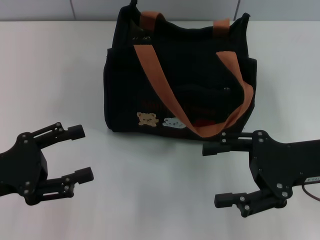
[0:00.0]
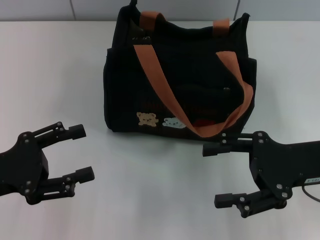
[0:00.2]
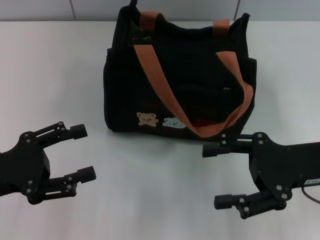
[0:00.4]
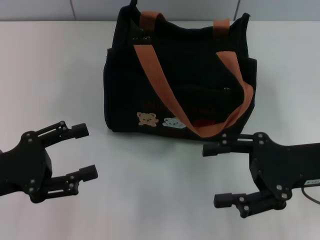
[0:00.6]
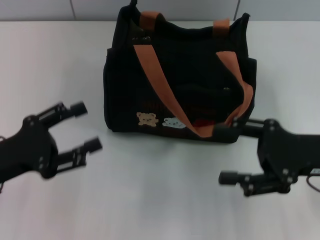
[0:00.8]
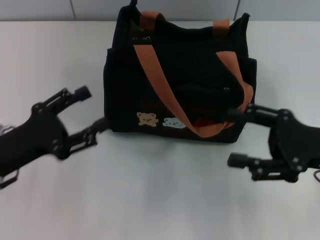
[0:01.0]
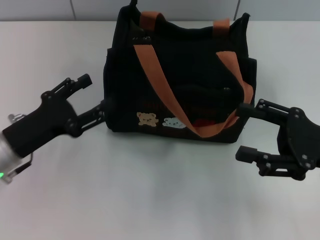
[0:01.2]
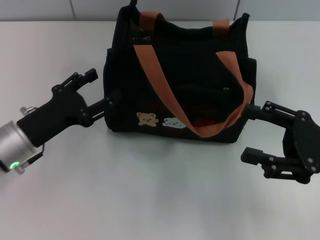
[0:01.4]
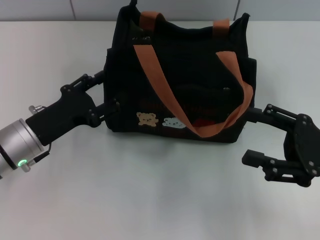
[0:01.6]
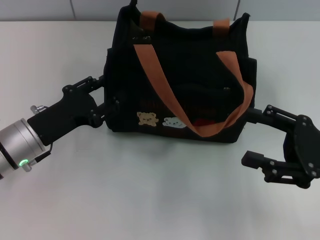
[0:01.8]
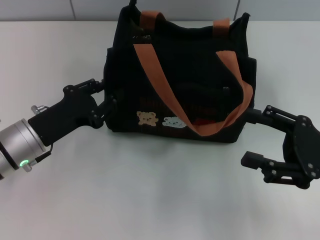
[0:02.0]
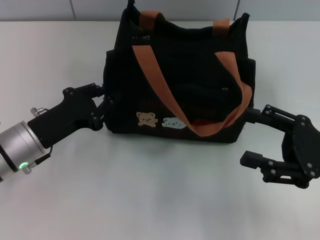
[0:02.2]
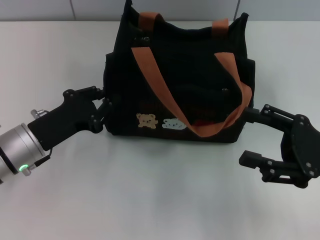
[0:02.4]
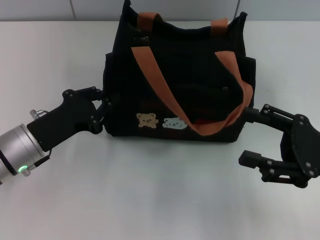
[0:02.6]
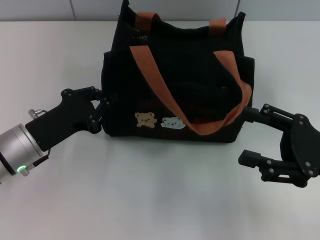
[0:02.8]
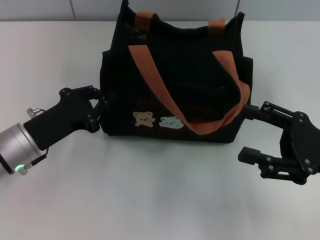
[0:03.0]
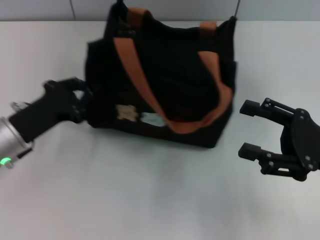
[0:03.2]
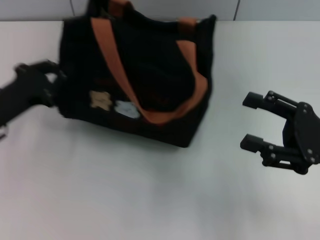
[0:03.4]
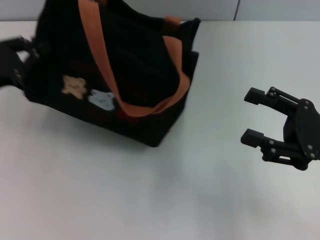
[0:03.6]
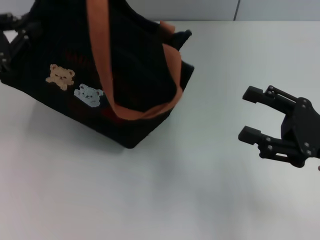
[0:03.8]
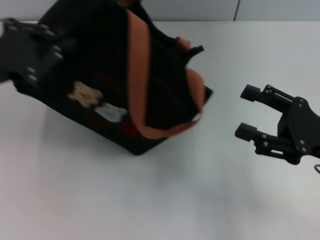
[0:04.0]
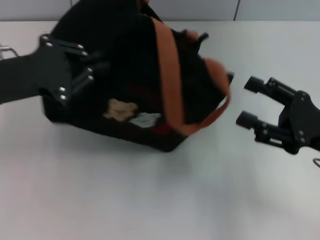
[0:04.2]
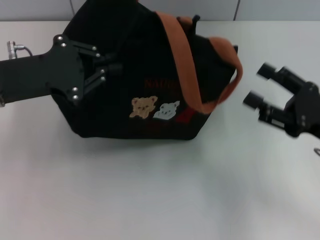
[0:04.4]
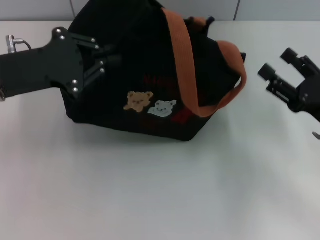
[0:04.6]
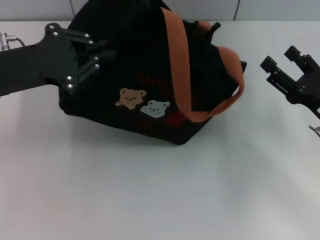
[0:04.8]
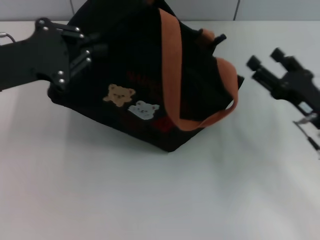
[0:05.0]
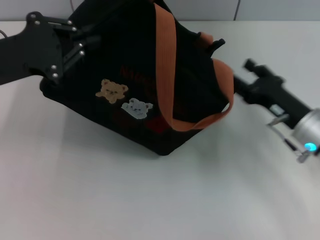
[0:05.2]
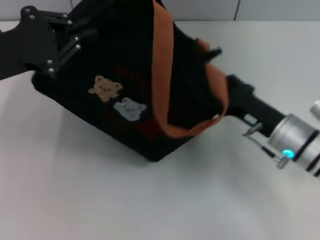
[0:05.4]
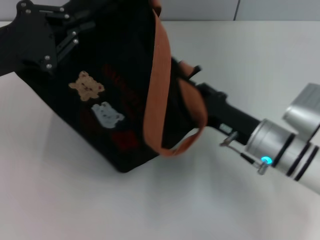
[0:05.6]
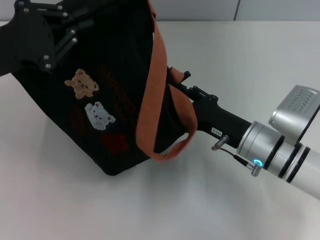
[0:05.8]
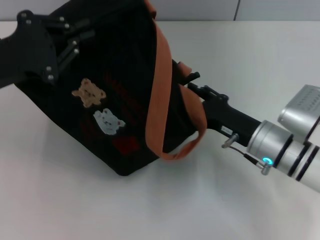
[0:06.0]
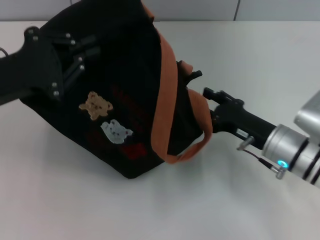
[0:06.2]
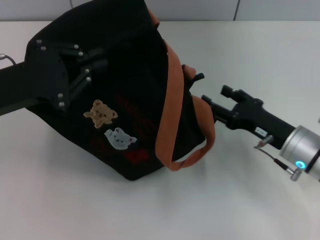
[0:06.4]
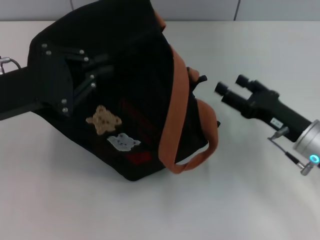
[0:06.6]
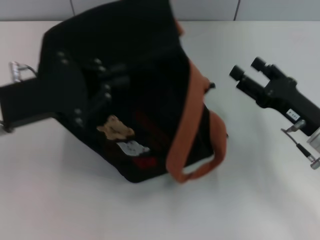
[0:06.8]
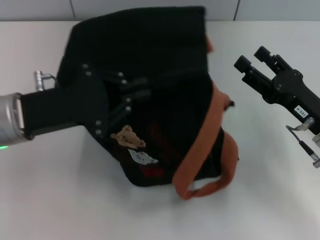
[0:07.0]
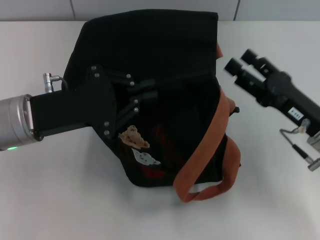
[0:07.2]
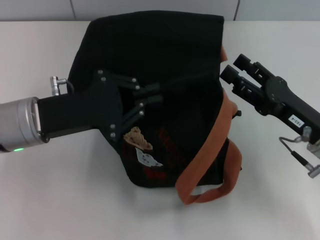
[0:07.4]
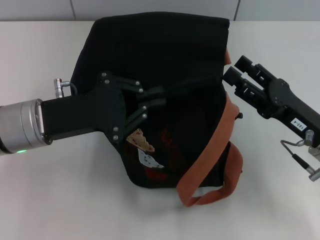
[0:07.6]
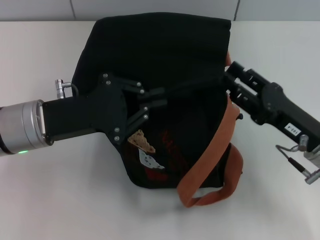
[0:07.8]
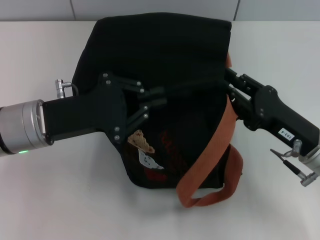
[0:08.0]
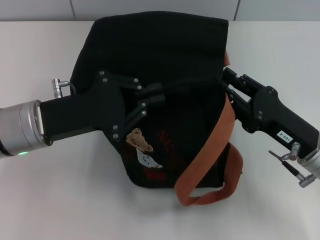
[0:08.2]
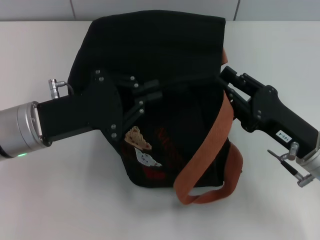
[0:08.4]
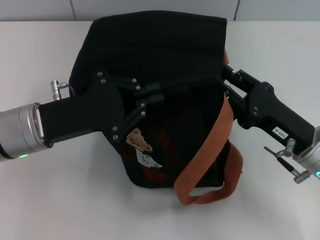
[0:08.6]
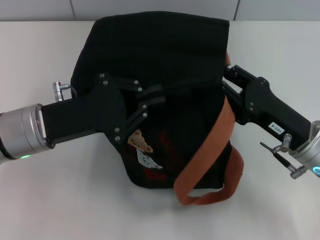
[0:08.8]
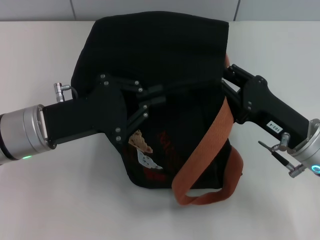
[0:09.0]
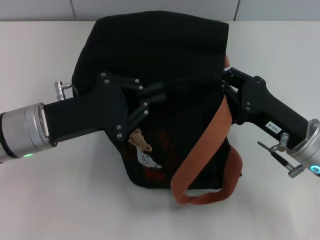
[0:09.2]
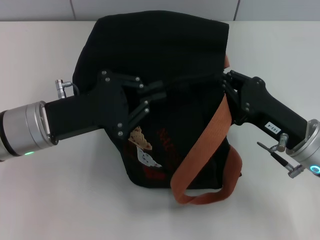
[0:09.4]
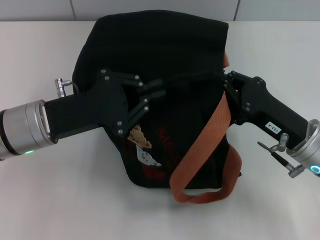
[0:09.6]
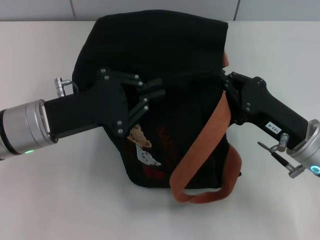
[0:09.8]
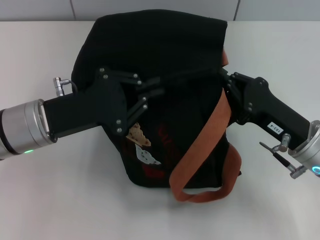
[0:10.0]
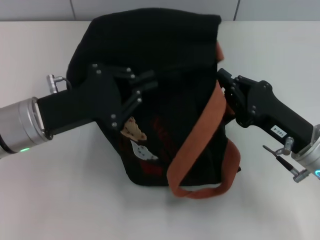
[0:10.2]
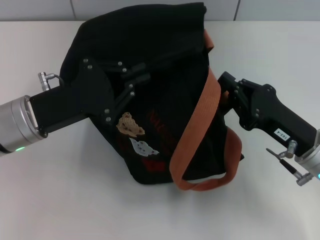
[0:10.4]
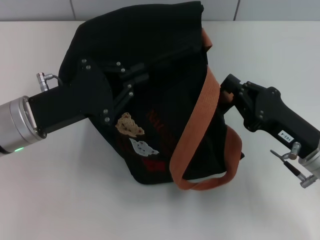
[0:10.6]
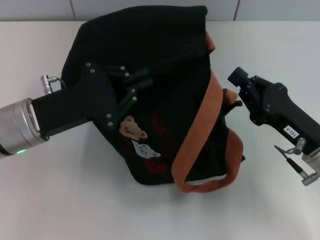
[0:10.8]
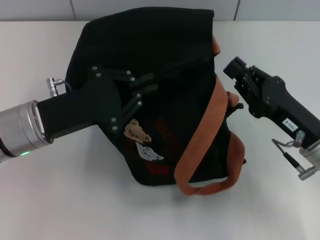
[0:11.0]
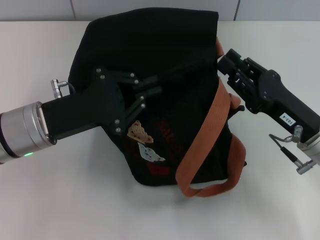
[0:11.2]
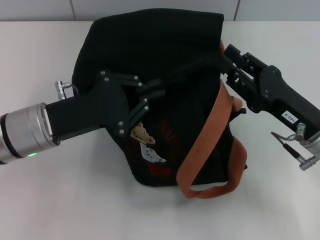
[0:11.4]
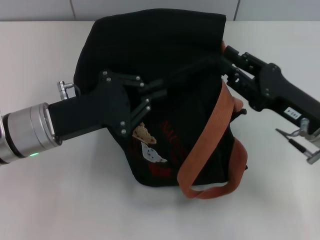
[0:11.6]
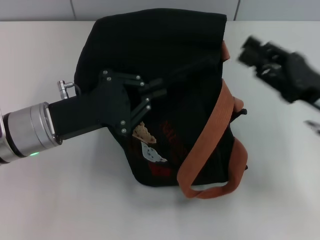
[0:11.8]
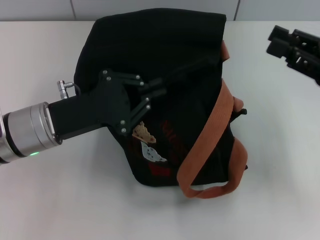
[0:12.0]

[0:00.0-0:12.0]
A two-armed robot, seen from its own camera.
0:00.0 to 0:01.6: The right gripper shifts by about 5 cm; the left gripper is displaced forward and to the right by approximately 10 cm.
0:01.6 to 0:03.0: The left gripper closes.
0:03.0 to 0:04.4: The left gripper goes about 10 cm upward.
0:04.4 to 0:06.0: The right gripper shifts some 10 cm to the left.
0:06.0 to 0:07.6: The grippers both shift to the right by approximately 5 cm.
0:07.6 to 0:09.0: The right gripper closes.
0:09.0 to 0:10.4: The right gripper closes up.
0:10.4 to 0:12.0: The right gripper goes roughly 10 cm upward and to the right, and opens its fingers.

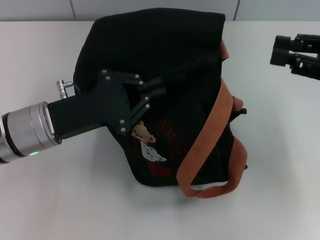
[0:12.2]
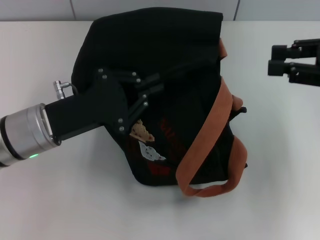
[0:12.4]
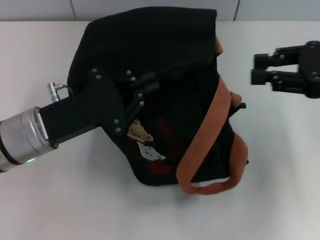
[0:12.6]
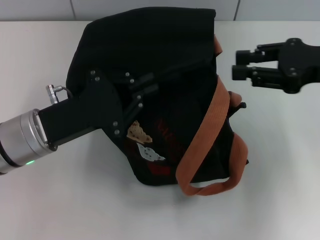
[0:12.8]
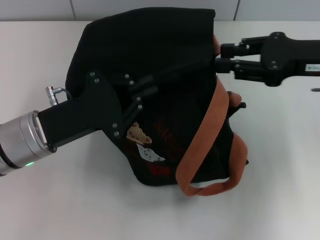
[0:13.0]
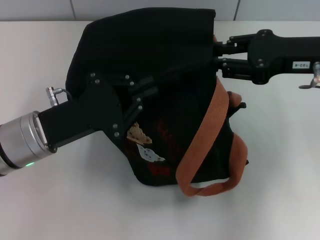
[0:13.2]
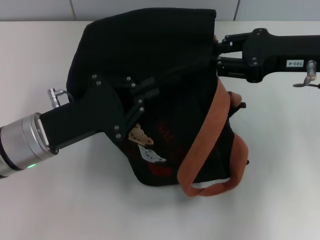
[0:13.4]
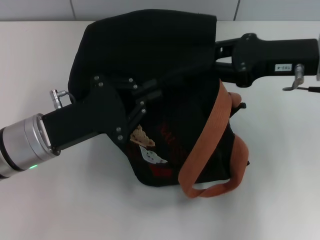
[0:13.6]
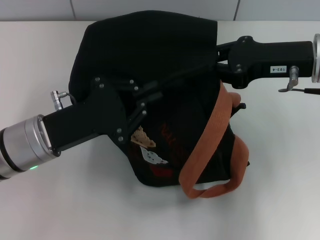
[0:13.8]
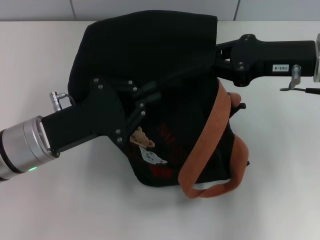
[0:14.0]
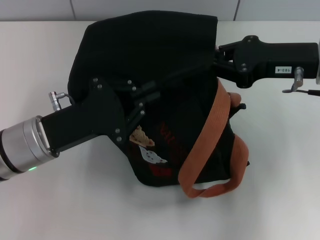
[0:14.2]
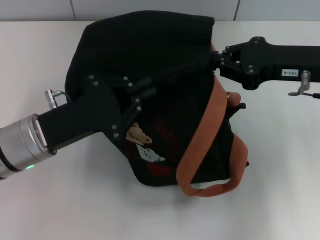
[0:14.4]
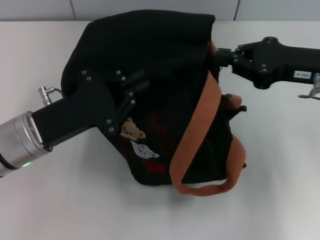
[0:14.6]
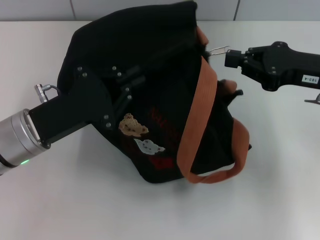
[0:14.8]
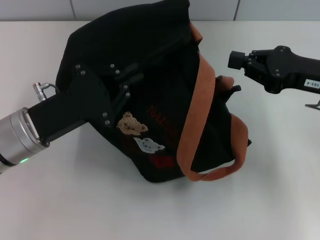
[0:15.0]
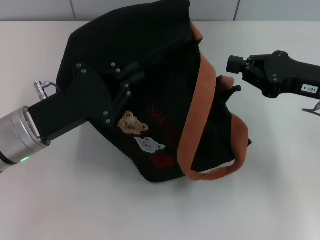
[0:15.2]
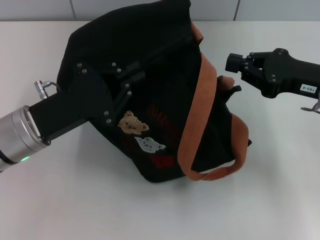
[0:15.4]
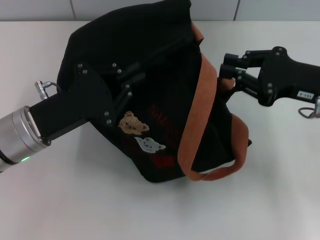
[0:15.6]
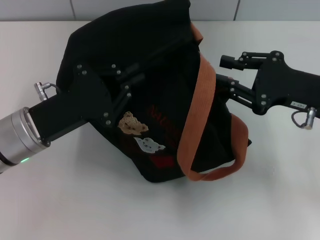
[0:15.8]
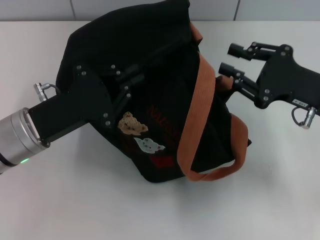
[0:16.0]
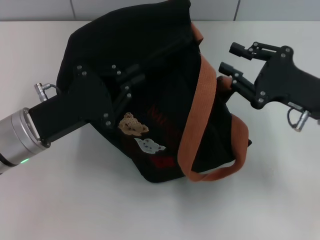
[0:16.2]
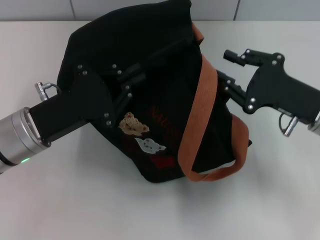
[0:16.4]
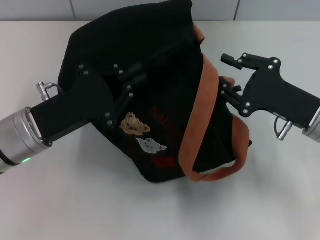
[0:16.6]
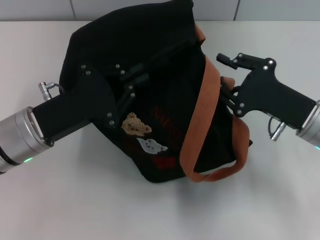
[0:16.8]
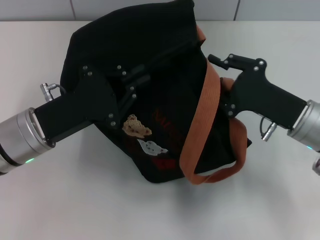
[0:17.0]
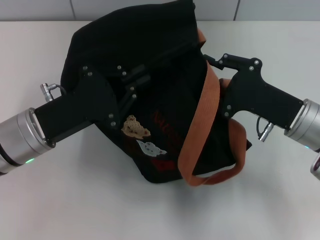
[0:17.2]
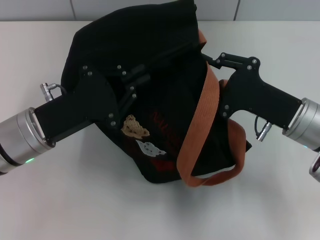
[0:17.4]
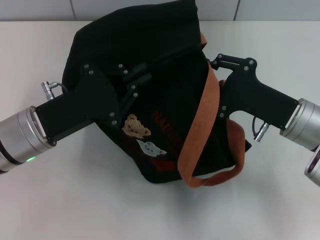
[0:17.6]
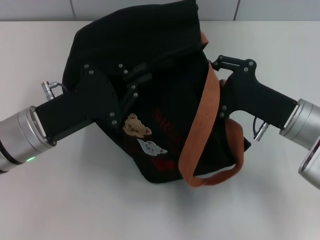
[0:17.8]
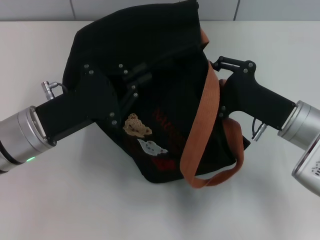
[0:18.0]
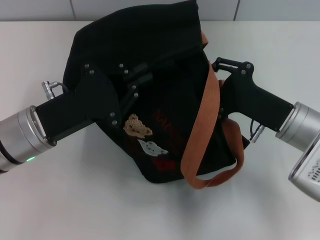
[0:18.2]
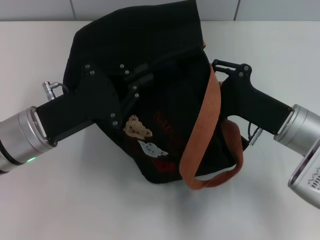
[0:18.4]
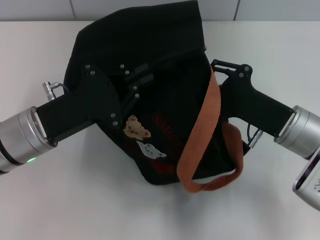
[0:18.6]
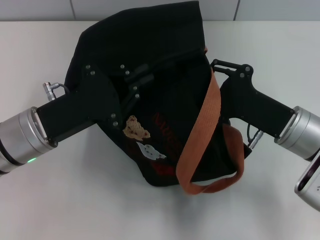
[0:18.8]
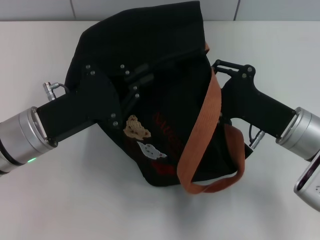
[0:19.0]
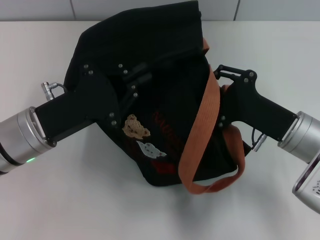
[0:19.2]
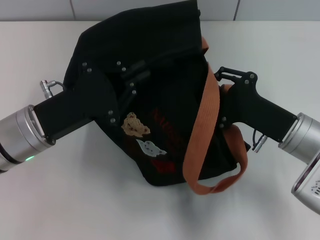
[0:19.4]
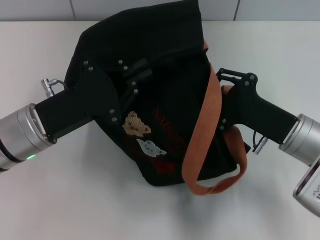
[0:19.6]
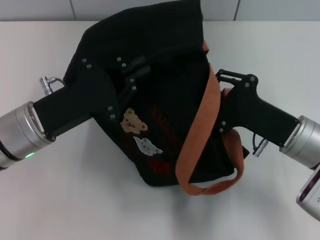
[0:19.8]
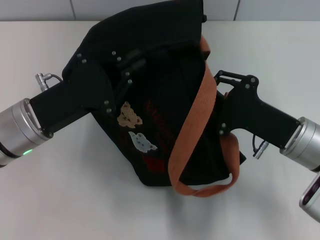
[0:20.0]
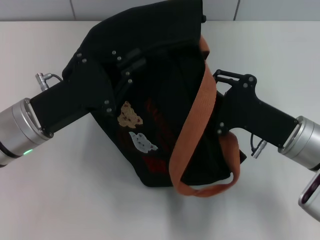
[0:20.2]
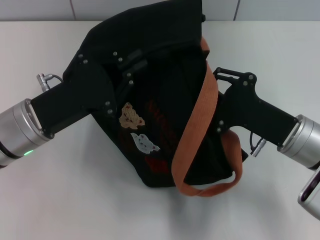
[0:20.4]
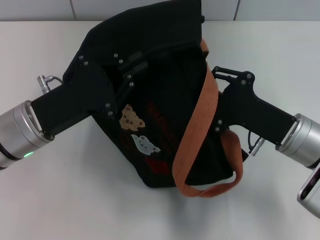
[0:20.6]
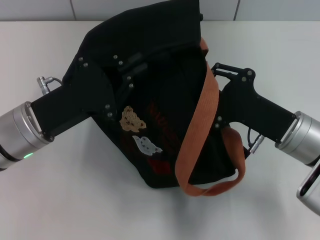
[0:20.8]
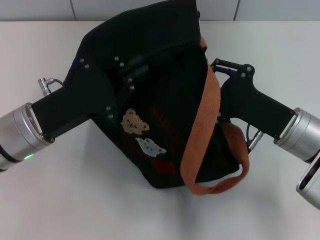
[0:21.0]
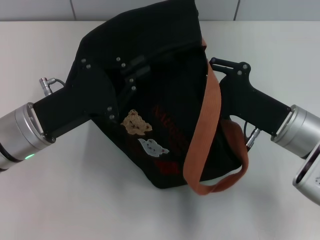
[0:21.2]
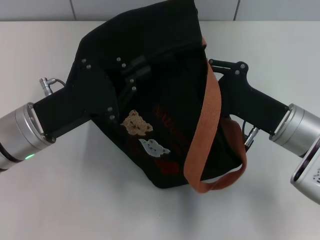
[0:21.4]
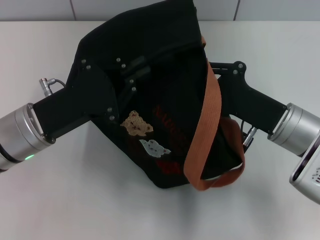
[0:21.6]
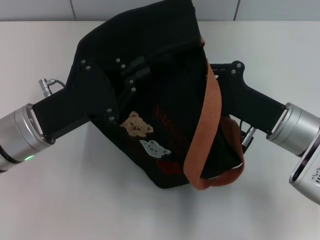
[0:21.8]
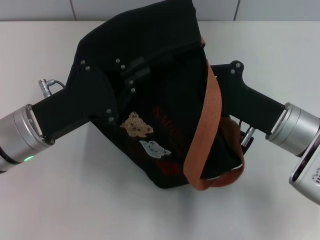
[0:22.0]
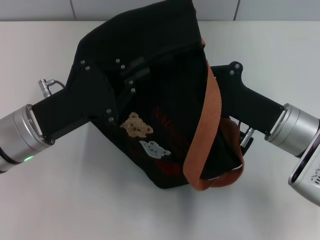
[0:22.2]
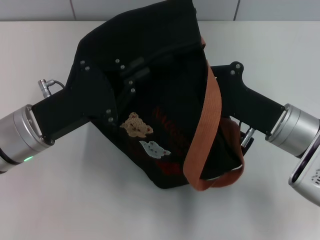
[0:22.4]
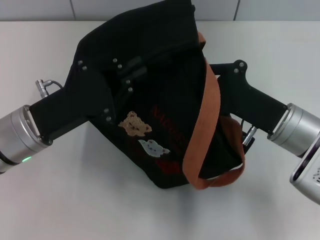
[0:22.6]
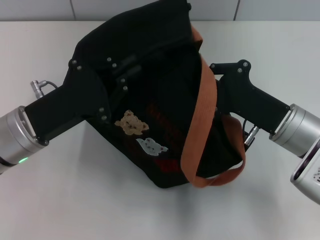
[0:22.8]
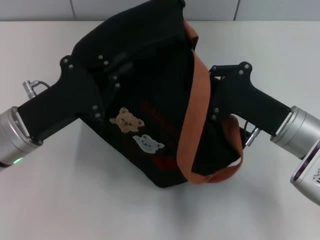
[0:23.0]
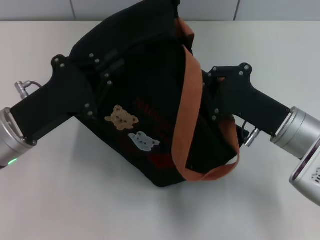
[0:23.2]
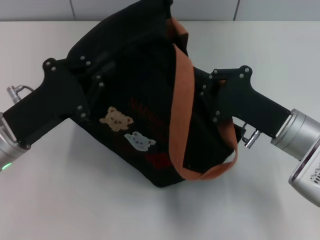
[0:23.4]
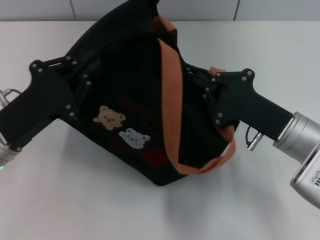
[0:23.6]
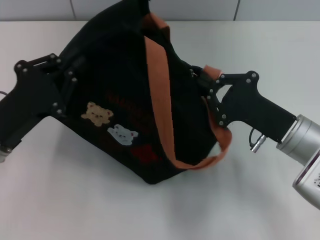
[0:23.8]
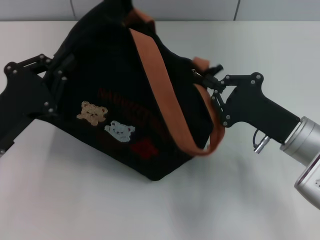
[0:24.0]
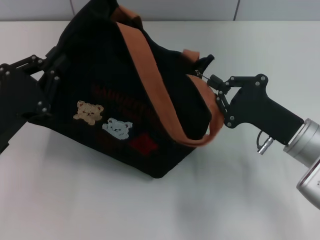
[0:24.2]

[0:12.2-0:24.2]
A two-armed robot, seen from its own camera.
0:12.2 to 0:13.8: The right gripper is displaced to the left by roughly 10 cm.
0:13.8 to 0:15.2: The right gripper moves approximately 5 cm.
0:15.2 to 0:16.6: The right gripper shifts about 5 cm downward, and opens its fingers.
0:16.6 to 0:21.2: The grippers move only a little.
0:21.2 to 0:22.6: The right gripper closes its fingers.
0:22.6 to 0:24.2: The left gripper travels to the left by roughly 5 cm.
